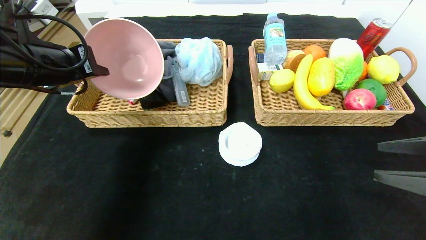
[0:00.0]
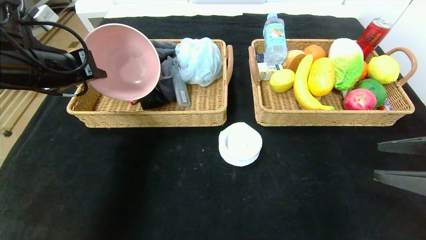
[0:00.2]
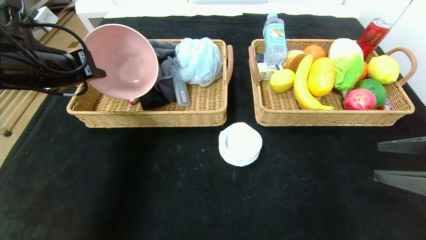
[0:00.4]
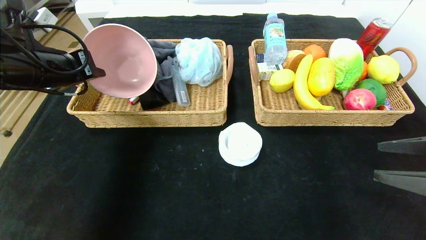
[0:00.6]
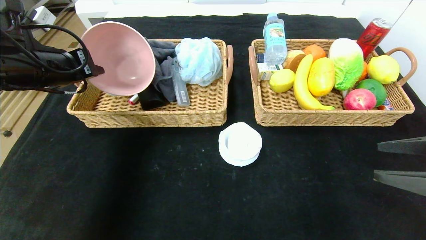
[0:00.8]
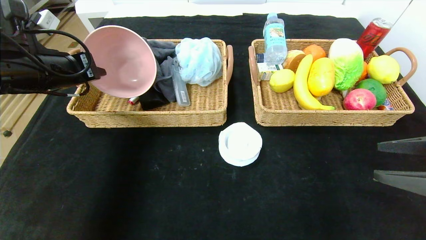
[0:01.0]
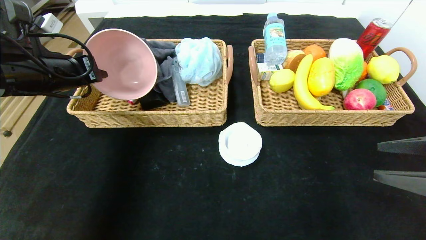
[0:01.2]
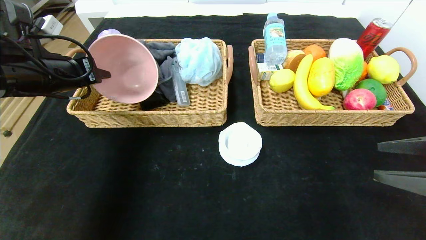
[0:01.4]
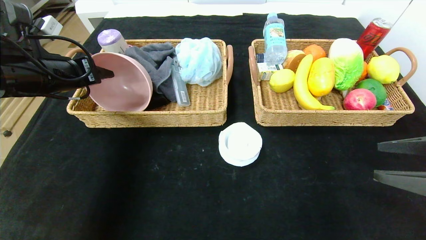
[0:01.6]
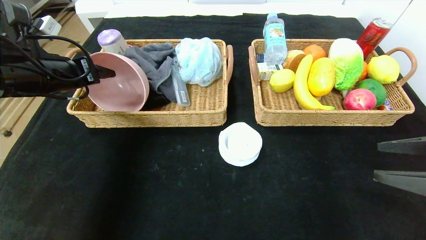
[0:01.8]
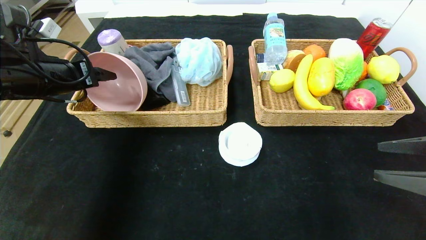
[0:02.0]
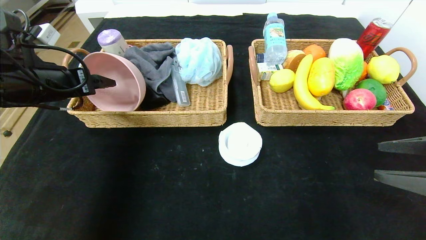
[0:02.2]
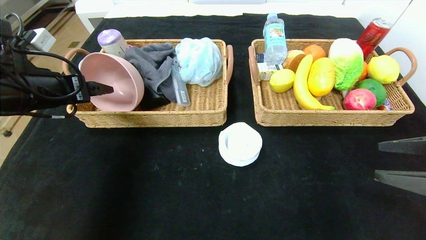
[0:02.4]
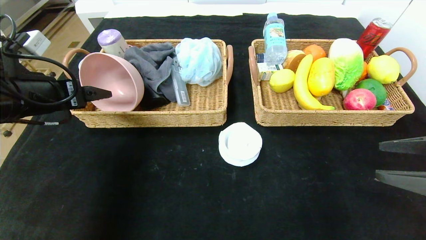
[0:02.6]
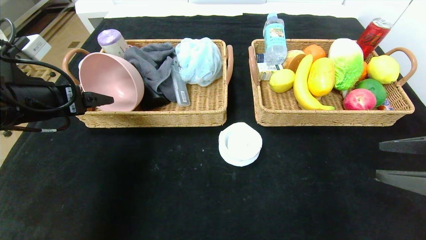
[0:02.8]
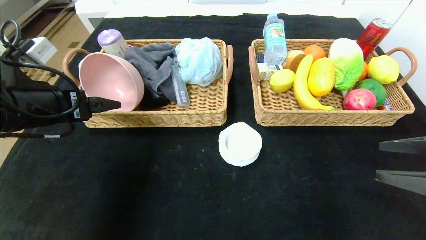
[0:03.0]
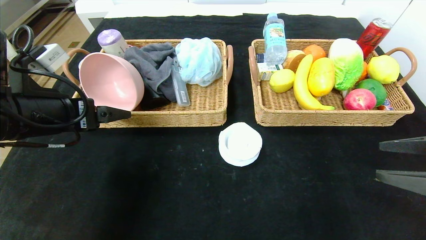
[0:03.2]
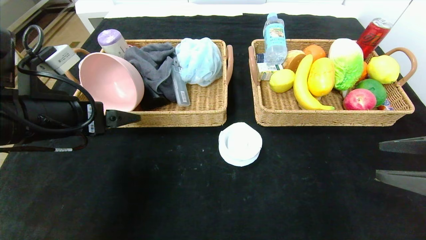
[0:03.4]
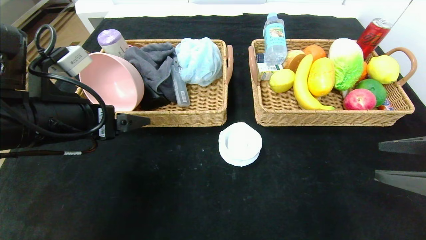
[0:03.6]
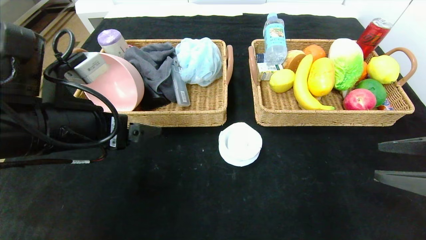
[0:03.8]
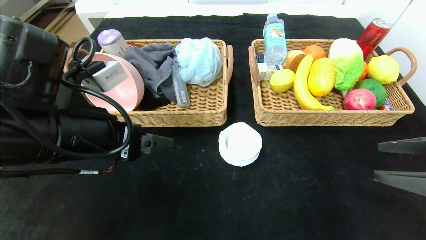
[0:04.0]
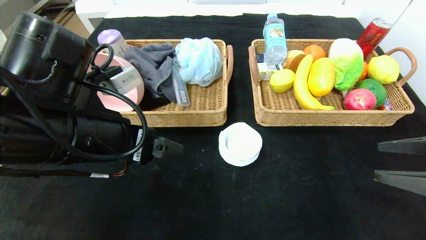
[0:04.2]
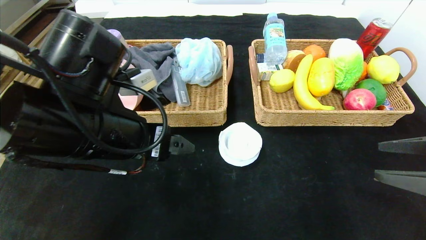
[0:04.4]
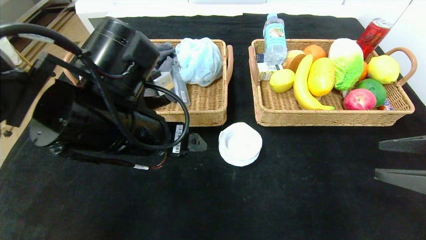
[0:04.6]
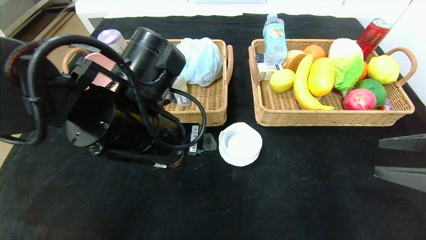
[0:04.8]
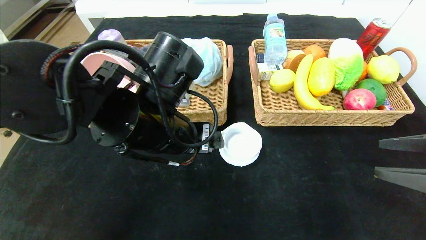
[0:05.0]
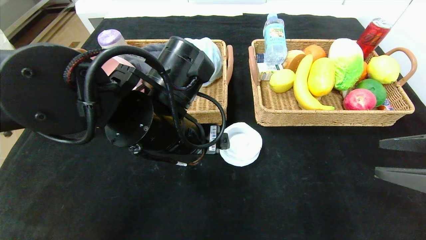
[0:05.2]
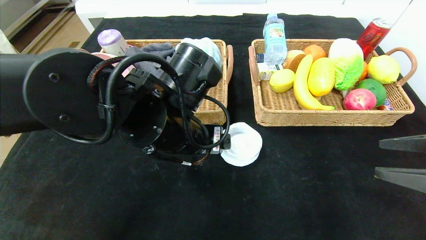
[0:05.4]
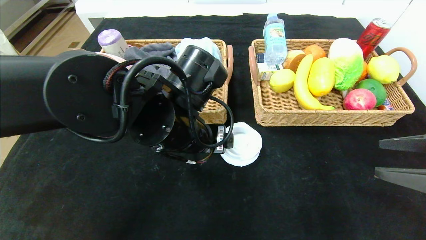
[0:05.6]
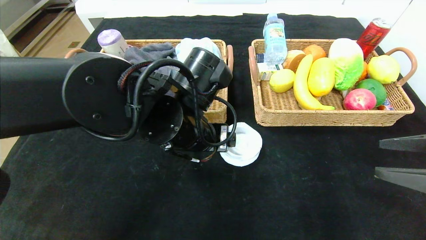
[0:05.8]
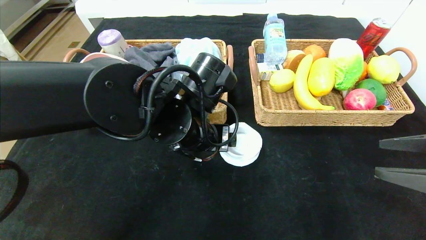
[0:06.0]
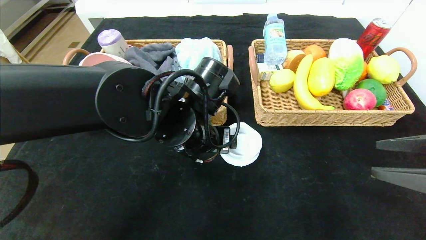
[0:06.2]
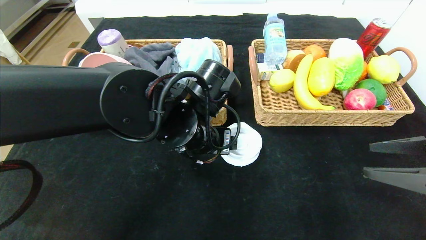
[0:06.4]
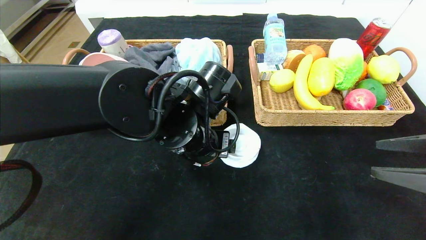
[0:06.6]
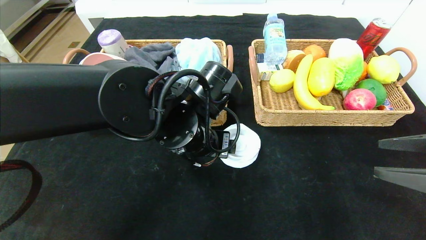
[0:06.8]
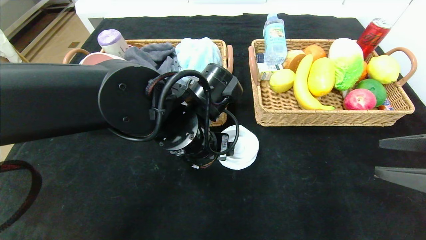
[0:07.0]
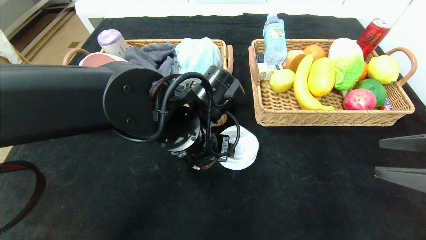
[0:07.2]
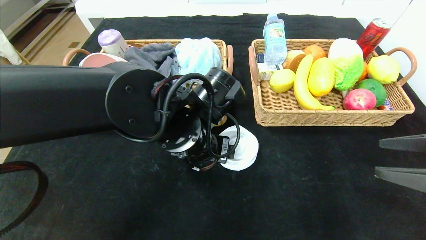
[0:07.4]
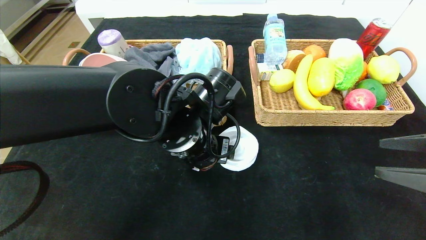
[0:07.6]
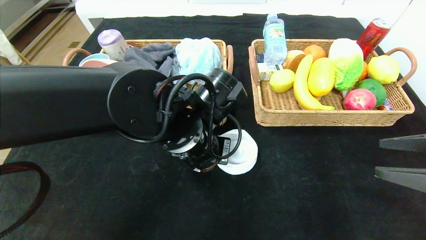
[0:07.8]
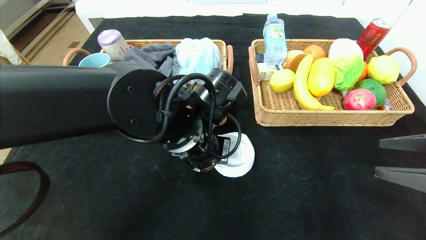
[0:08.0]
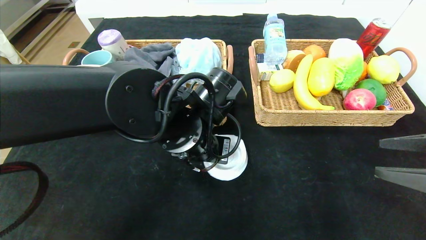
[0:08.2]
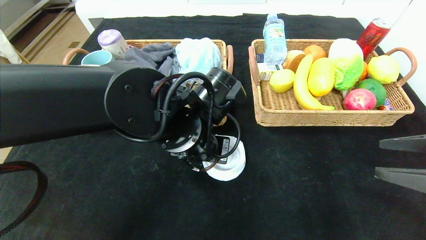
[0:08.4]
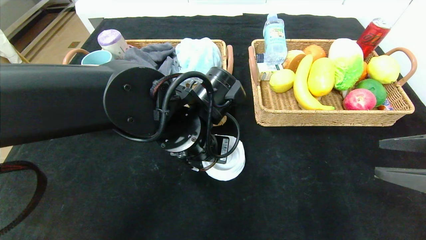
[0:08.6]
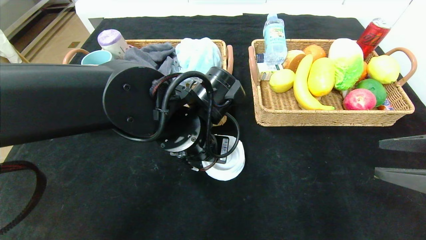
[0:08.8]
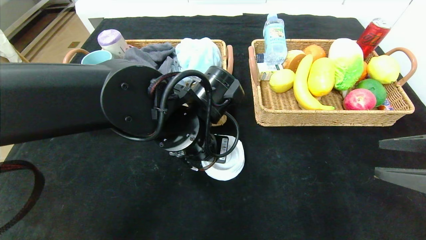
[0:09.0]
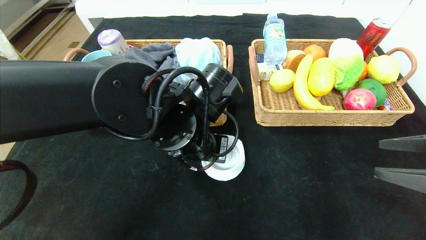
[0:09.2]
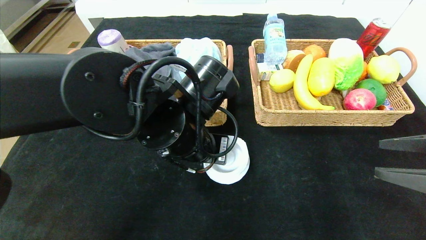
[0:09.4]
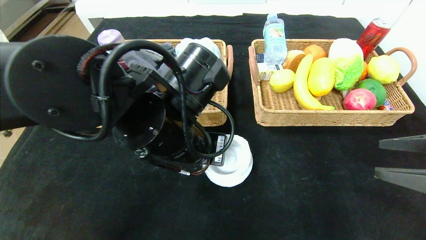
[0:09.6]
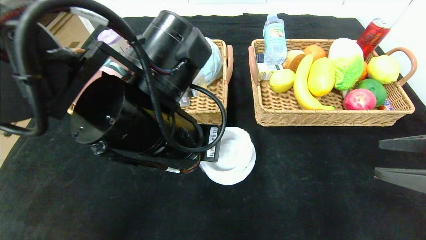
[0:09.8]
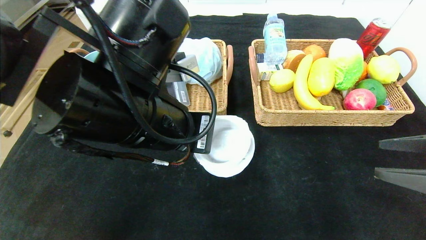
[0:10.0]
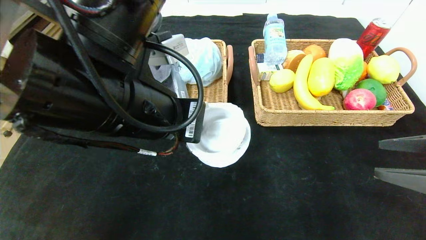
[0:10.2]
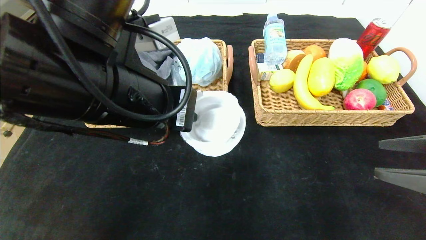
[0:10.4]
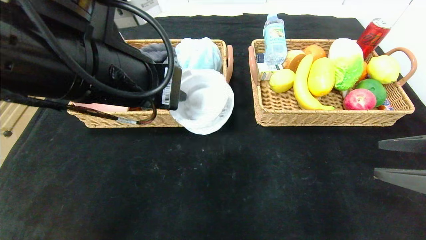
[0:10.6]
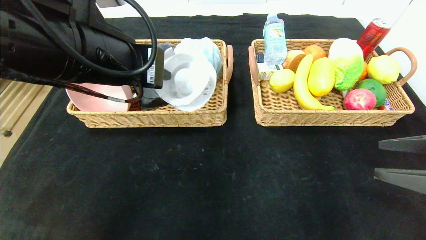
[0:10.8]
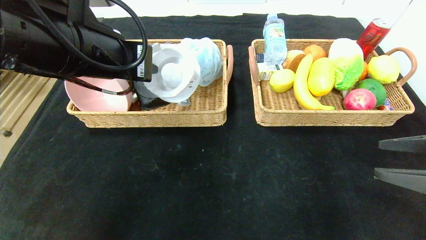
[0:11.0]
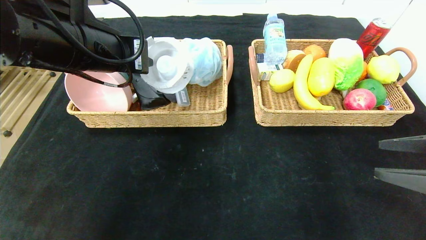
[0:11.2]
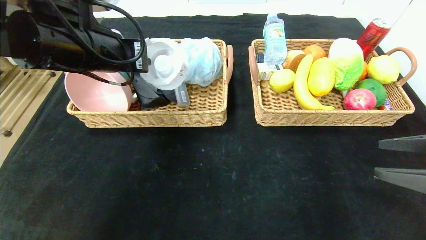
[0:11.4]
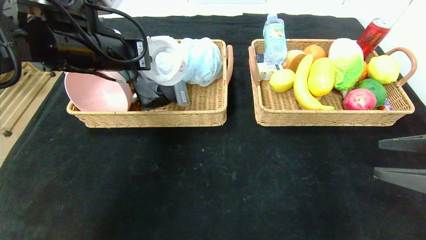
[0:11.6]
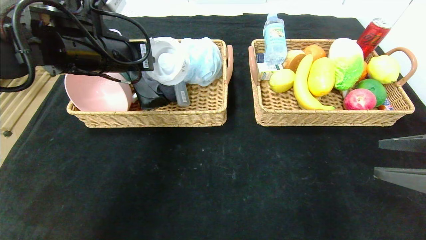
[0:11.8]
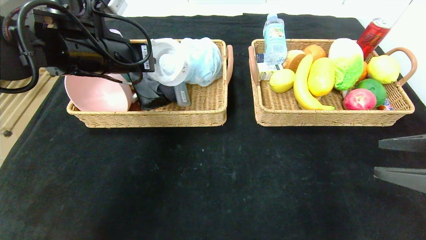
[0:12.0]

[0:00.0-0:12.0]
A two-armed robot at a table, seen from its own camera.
Step, 0:00.0 to 0:04.0: Pick up the pink bowl and put it in the left basket.
0:00.0 to 0:01.6: The left gripper moves about 5 cm, and opens its fingers.
0:01.6 to 0:03.0: The left gripper moves backward, approximately 10 cm, and opens its fingers.
0:03.0 to 0:04.4: The left gripper travels to the right by about 15 cm.
0:04.4 to 0:06.0: The left gripper travels to the right and forward by some 10 cm.
0:06.0 to 0:07.6: There are only small adjustments of the grippers.
0:07.6 to 0:09.0: The left gripper closes.
0:09.0 to 0:10.4: The left gripper heads upward, backward and to the left, covering some 15 cm.
0:10.4 to 0:12.0: The left gripper moves forward and to the left, some 15 cm.

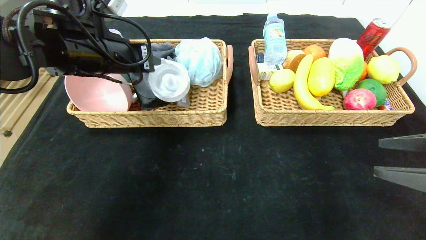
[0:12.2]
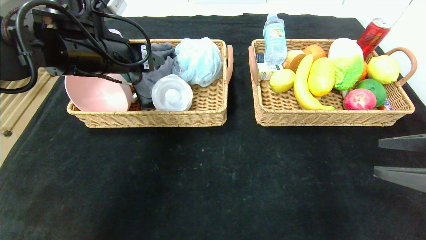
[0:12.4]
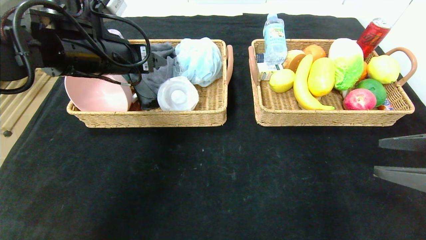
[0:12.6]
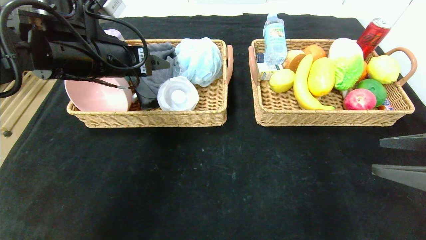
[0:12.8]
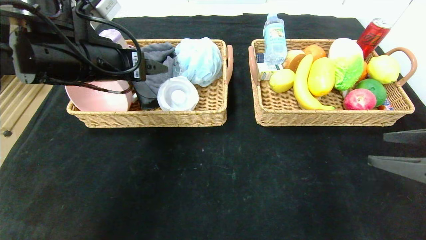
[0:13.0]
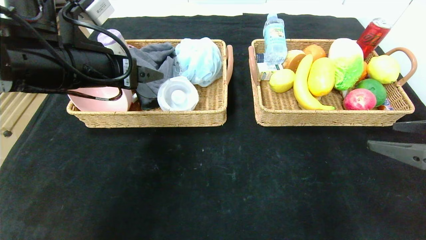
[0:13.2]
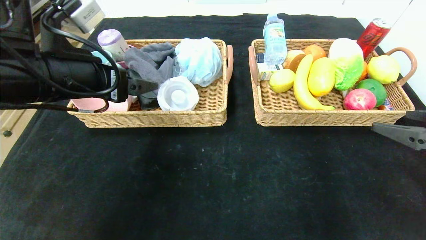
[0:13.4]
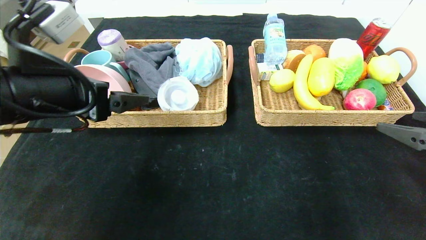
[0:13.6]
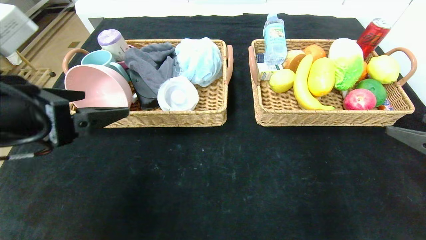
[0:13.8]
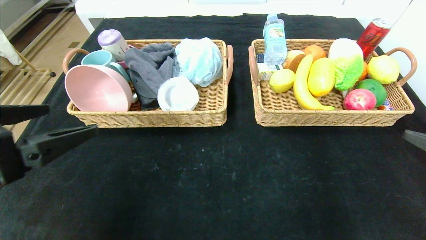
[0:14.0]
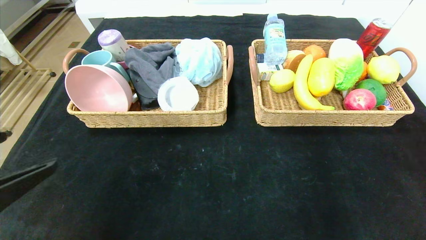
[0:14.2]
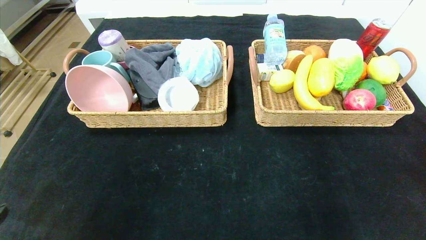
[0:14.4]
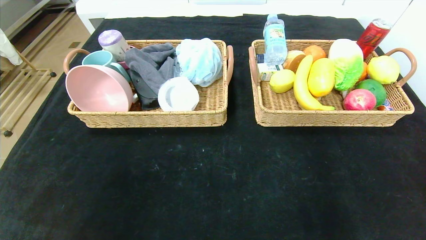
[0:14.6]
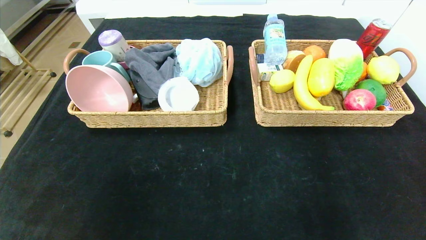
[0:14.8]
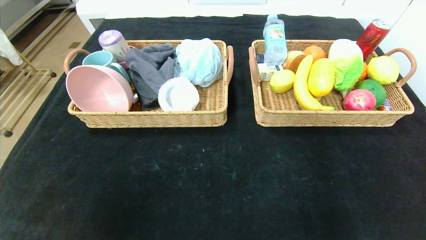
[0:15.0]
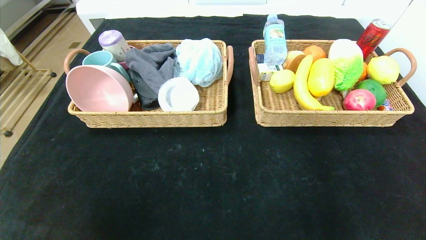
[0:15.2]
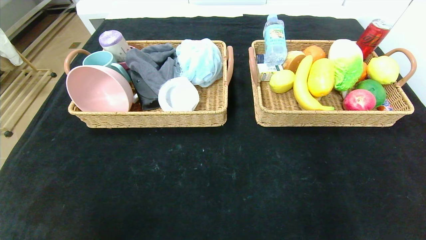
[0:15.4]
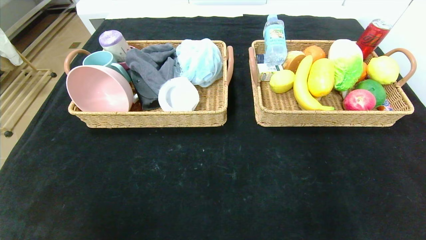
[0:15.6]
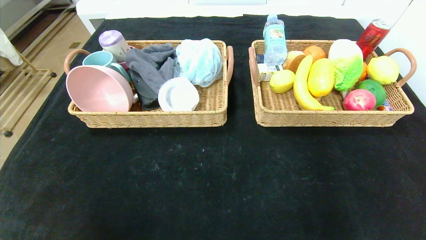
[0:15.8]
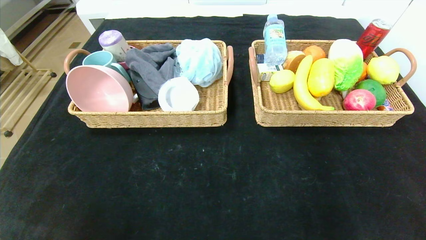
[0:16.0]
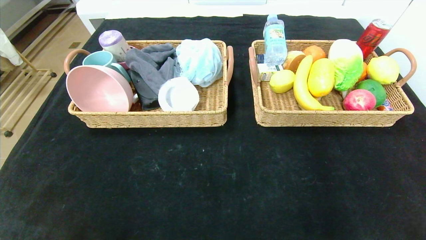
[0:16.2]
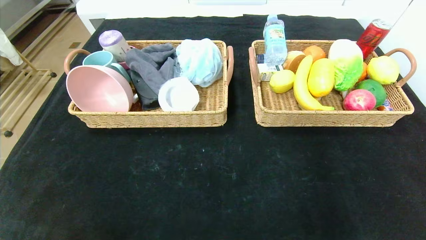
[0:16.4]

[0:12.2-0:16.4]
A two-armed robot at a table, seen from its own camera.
0:12.2 to 0:13.6: The left gripper heads backward, covering roughly 15 cm, and opens its fingers.
0:13.6 to 0:15.0: Both grippers move backward, about 25 cm.
